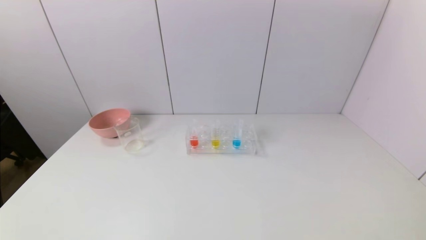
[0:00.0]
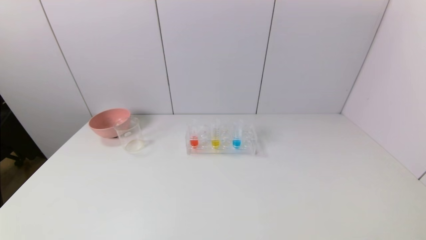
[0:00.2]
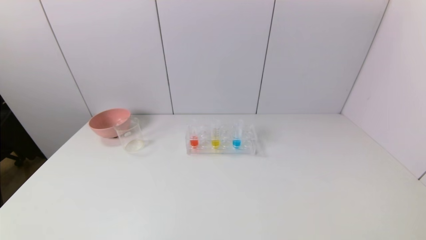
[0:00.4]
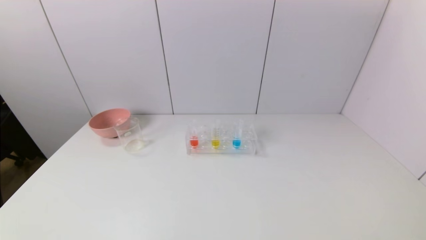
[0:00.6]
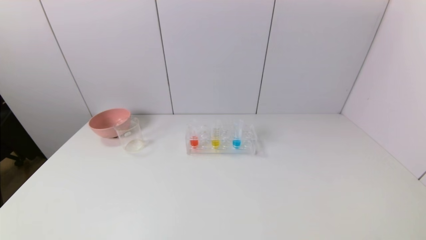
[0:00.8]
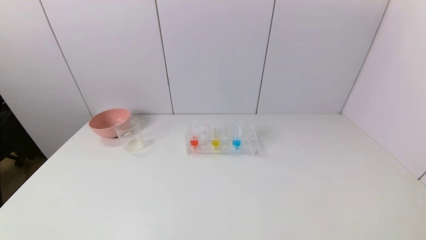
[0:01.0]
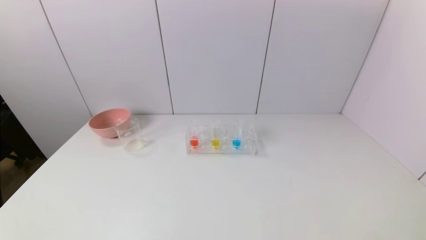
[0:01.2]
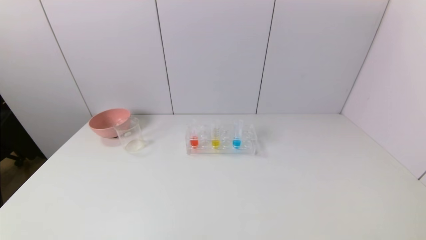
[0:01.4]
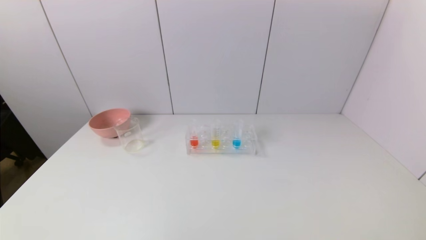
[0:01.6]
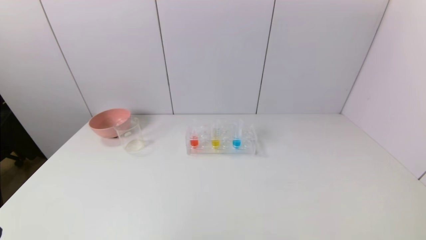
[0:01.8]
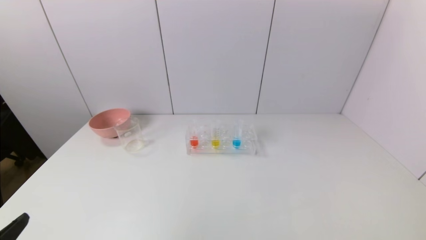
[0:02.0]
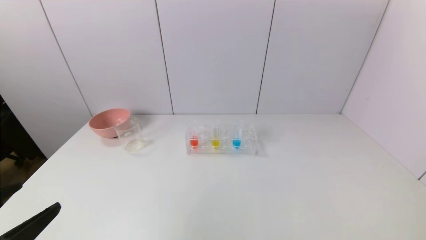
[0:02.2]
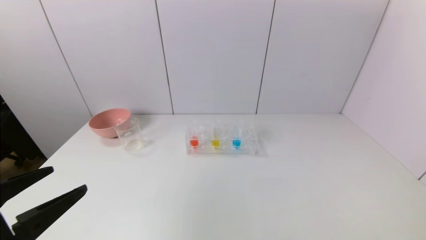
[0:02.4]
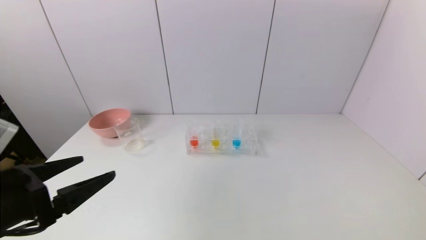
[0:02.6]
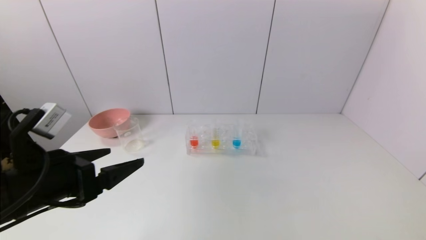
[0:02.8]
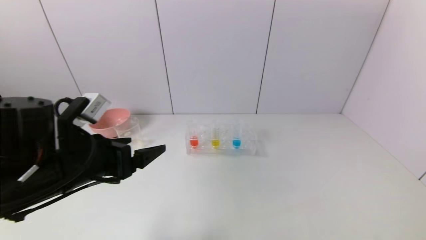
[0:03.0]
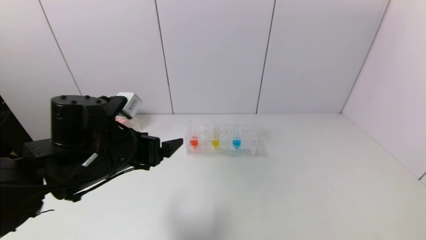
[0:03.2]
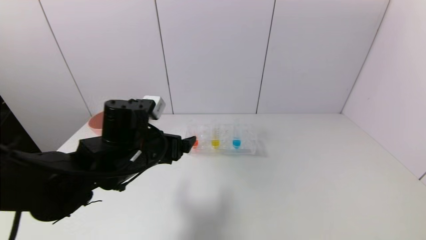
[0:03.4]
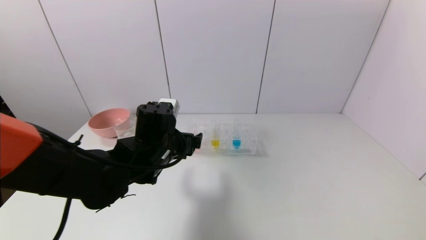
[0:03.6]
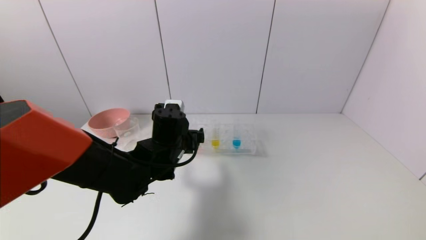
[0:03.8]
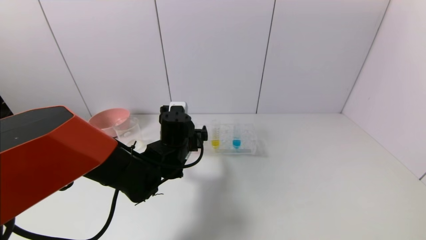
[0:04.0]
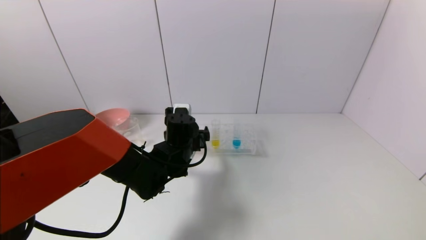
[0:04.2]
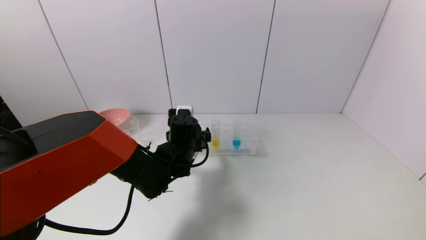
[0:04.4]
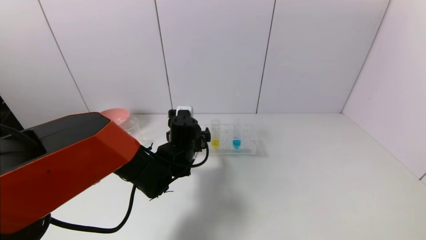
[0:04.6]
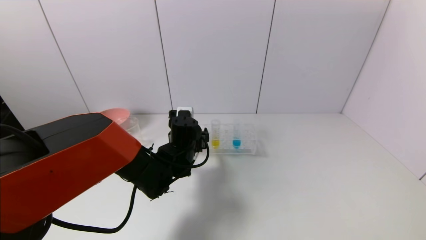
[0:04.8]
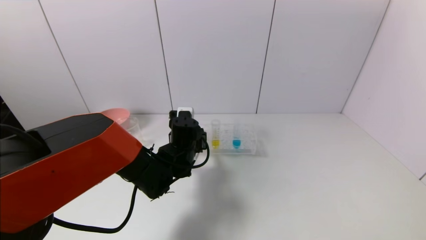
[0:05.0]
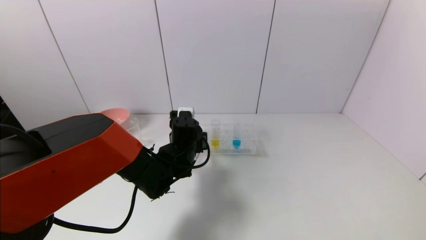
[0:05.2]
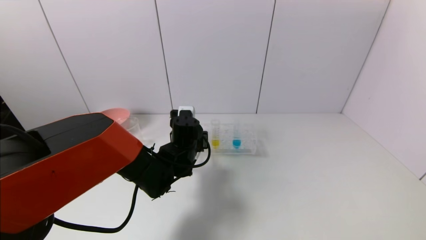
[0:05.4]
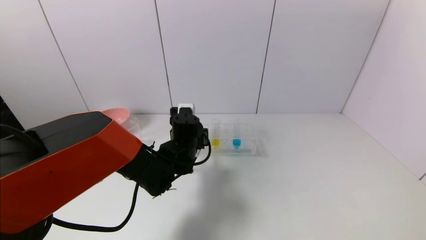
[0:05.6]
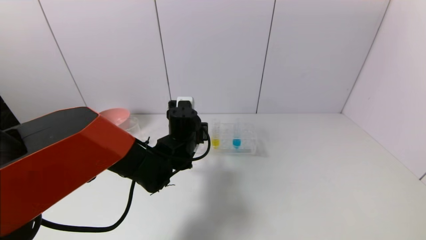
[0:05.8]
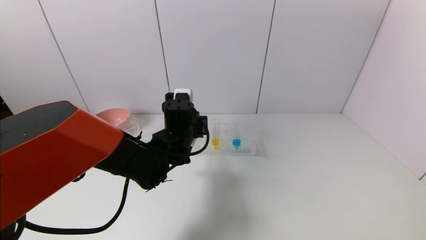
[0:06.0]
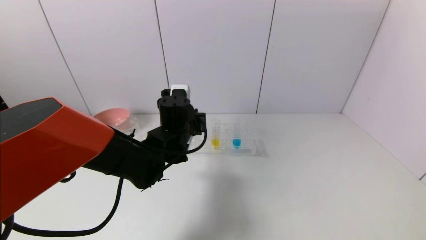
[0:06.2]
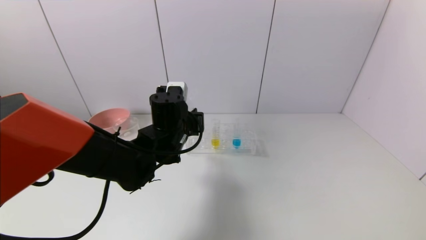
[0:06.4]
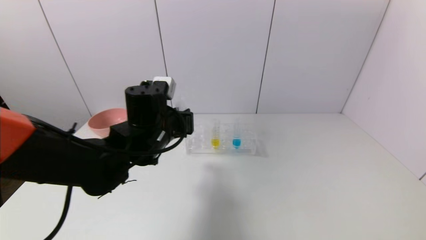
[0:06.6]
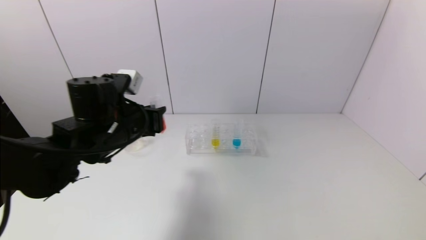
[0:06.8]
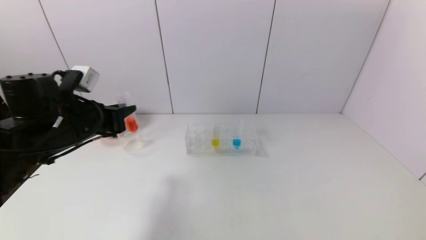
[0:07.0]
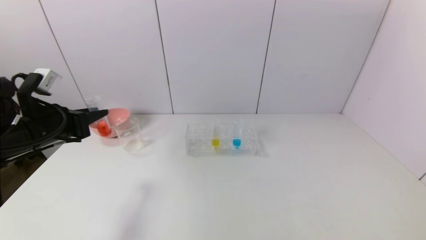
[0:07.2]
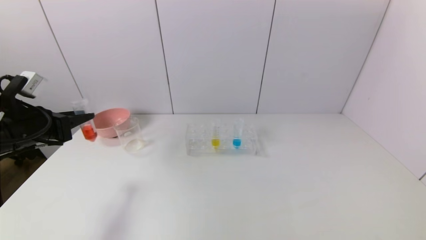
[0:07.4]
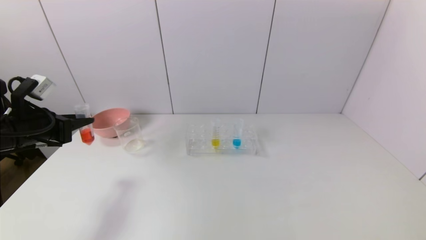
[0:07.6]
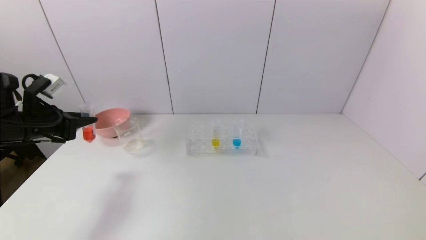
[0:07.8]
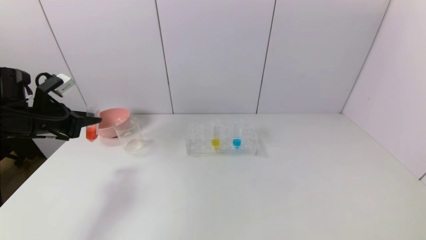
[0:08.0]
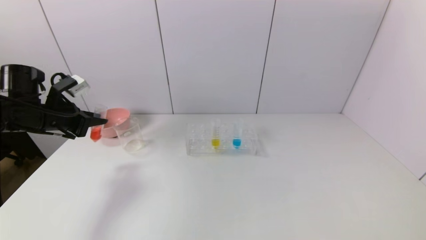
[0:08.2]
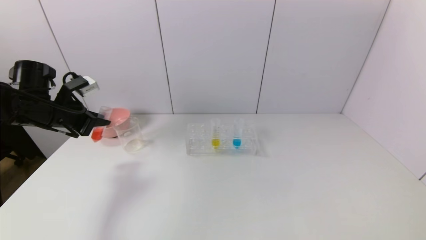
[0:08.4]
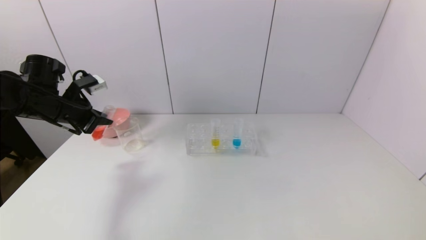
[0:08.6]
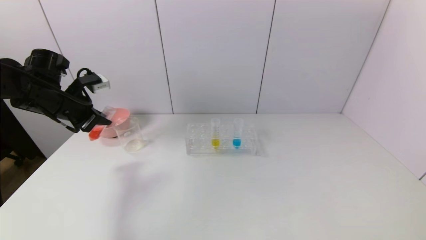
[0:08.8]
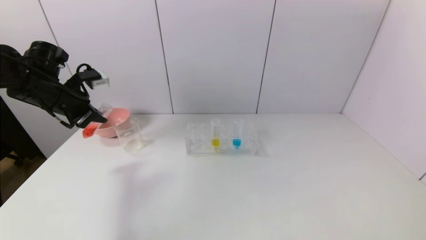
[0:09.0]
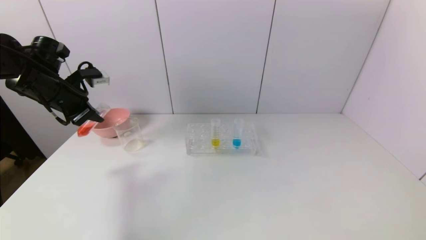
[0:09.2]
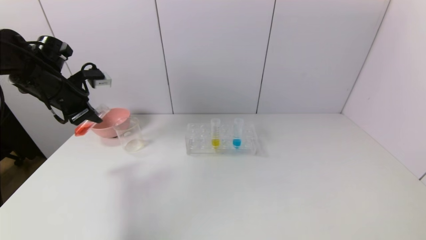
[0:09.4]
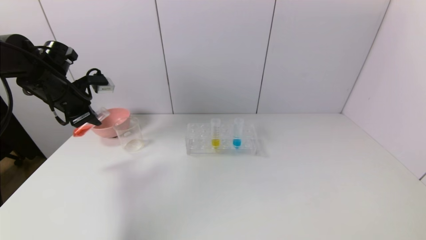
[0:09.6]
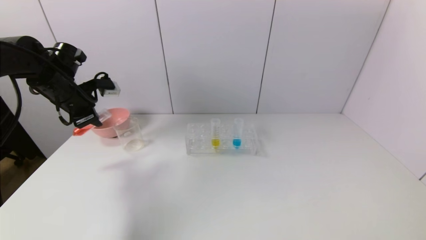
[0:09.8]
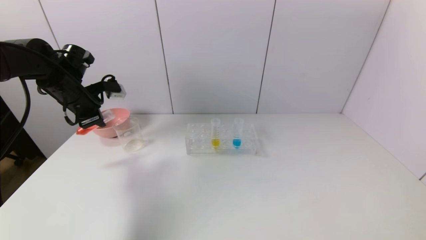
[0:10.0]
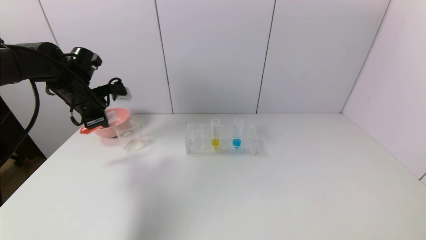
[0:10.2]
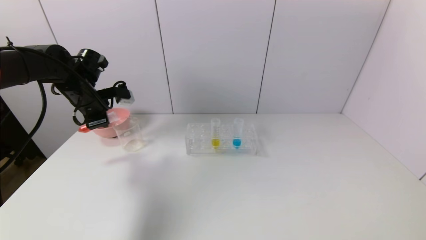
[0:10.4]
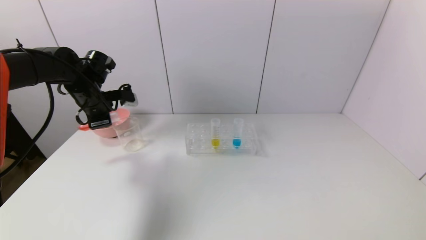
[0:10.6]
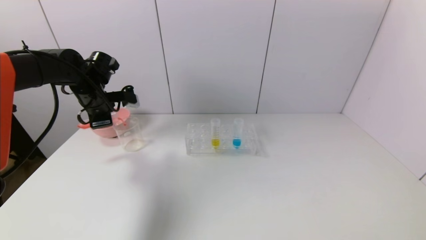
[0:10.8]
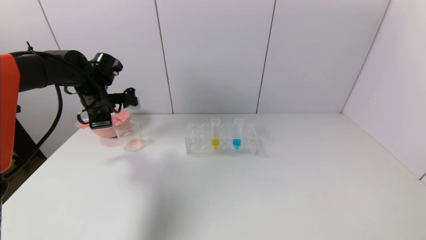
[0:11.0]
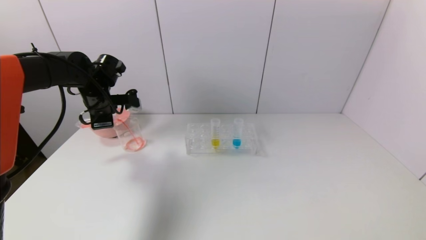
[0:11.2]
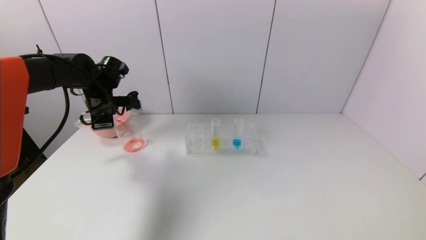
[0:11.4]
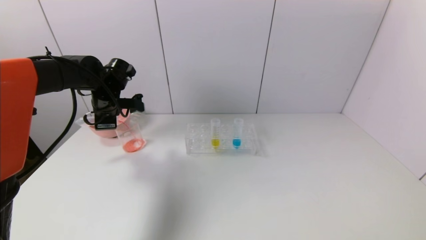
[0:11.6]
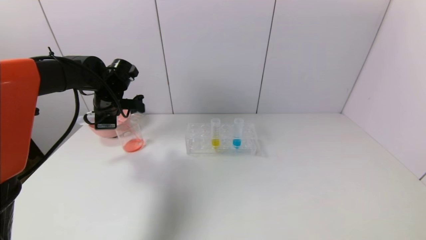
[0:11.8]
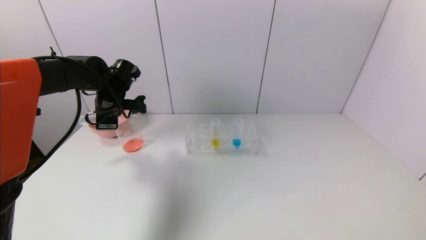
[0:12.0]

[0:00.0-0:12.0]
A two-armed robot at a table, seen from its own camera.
Task of the whole recording: pick up the test tube with yellow pigment and the test tube with red pigment by grippers and pour them into the beaker.
Step, 0:00.0 to 0:05.2: Grasp the red reagent with the left gripper.
0:01.6 to 0:03.0: The left gripper heads forward and to the right, covering about 25 cm.
0:03.0 to 0:04.4: The left gripper shifts some 20 cm forward, to the right and downward.
0:04.4 to 0:06.0: The left gripper closes its fingers.
0:06.0 to 0:07.6: The left gripper goes approximately 30 cm to the left.
0:07.6 to 0:09.0: The left gripper moves forward, some 10 cm.
0:09.0 to 0:10.4: The left gripper changes place by approximately 5 cm.
0:10.4 to 0:12.0: The left gripper heads to the right, covering some 5 cm.

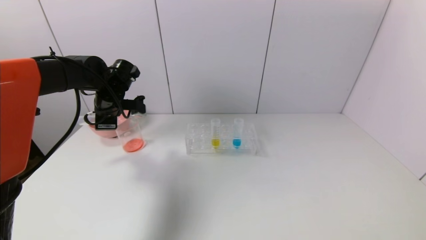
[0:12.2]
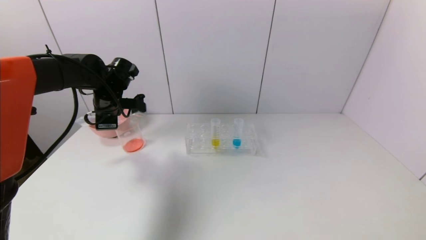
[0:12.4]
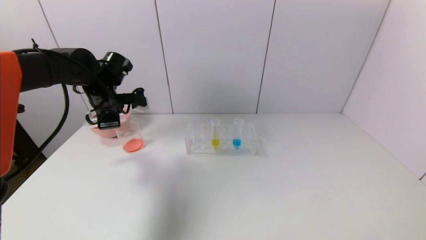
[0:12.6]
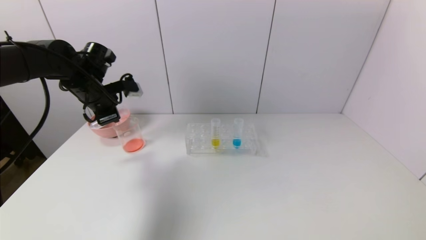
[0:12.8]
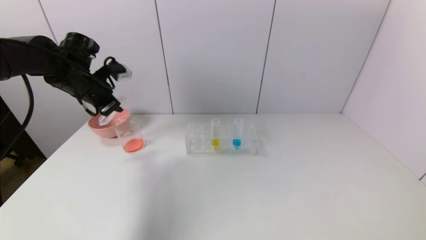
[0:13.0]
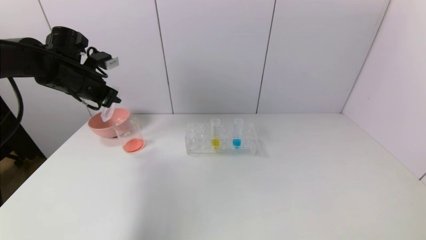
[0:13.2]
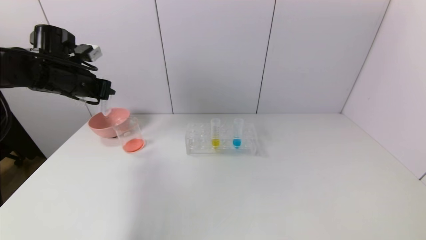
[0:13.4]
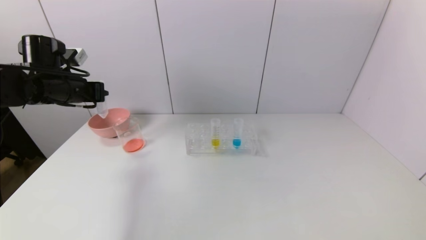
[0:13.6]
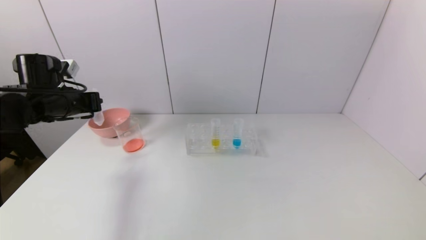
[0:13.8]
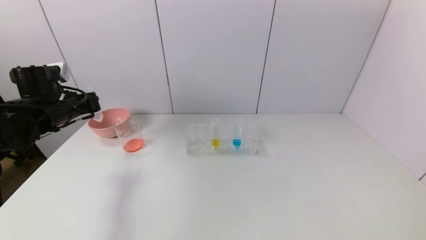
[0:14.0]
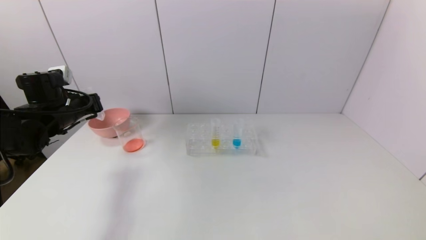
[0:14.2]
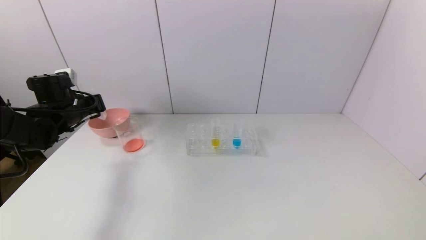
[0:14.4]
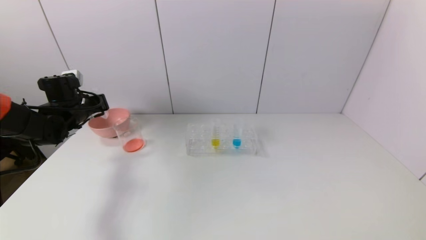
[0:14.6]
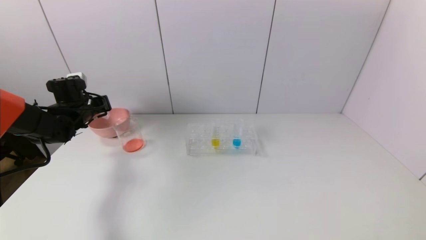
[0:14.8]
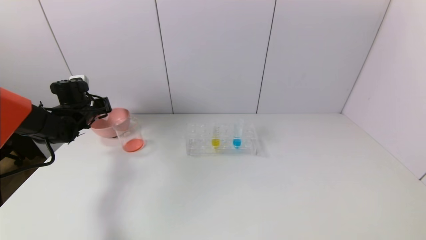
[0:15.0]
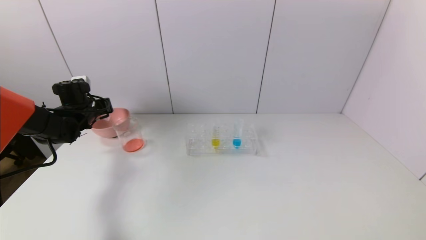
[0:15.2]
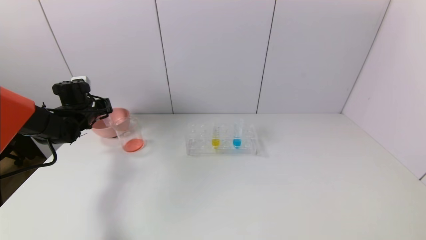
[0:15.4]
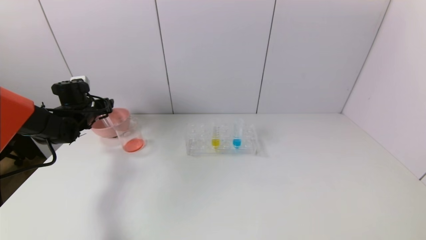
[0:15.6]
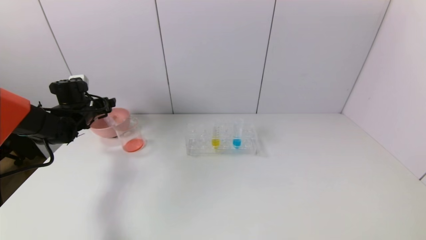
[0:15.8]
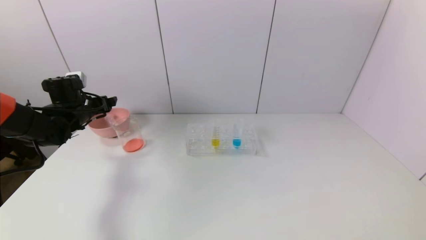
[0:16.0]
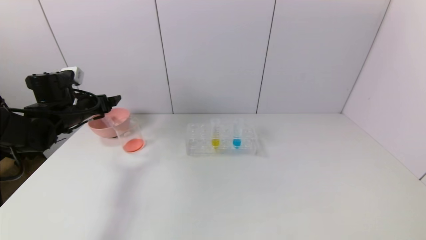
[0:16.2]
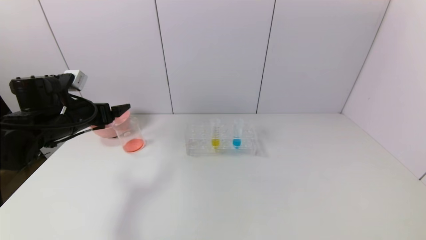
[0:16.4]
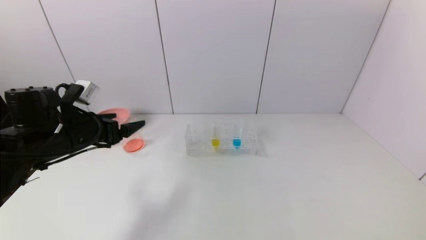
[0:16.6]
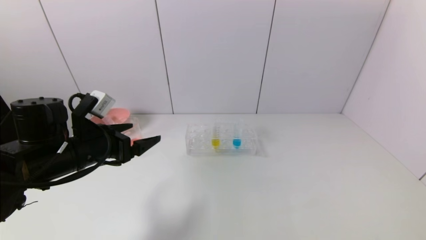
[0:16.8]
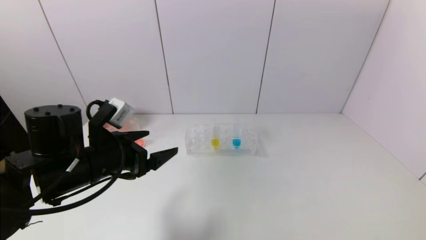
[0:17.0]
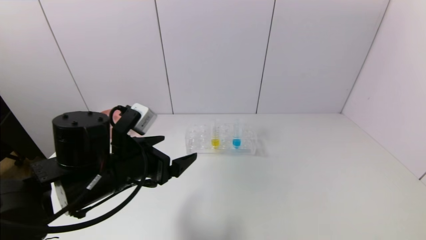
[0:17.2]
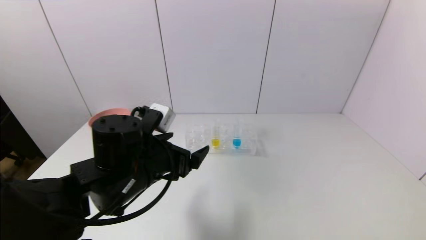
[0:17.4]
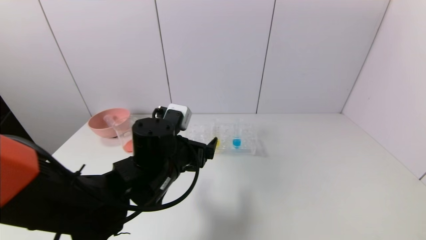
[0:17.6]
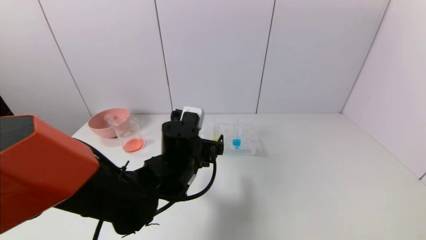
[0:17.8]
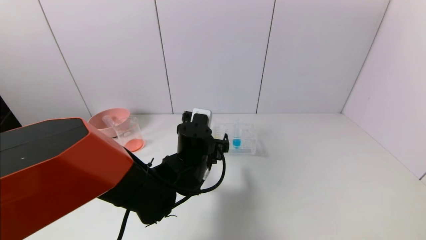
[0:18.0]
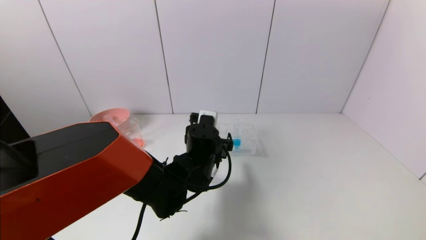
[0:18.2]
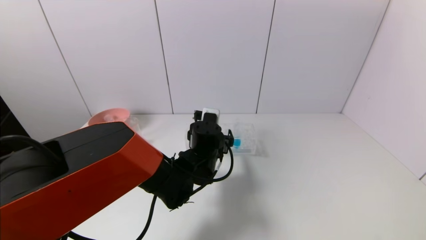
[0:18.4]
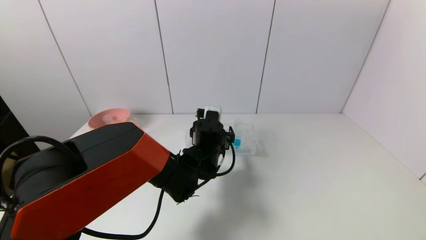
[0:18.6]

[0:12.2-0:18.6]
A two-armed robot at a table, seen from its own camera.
Task of the whole recording: pick up the test tube with yellow pigment and the test tube with red pigment by grippers and pour them into the beaker.
Step, 0:12.4 to 0:15.8: Place the test tube into the pink bowl with the left gripper.
0:12.2 to 0:13.8: The left gripper goes roughly 10 cm to the left and backward.
0:13.8 to 0:15.4: The left gripper moves forward and downward, roughly 10 cm, and opens up.
0:15.4 to 0:17.0: The left gripper shifts some 25 cm backward and to the right, and opens.
0:17.0 to 0:18.6: The left gripper heads to the right, forward and downward, covering roughly 25 cm.
